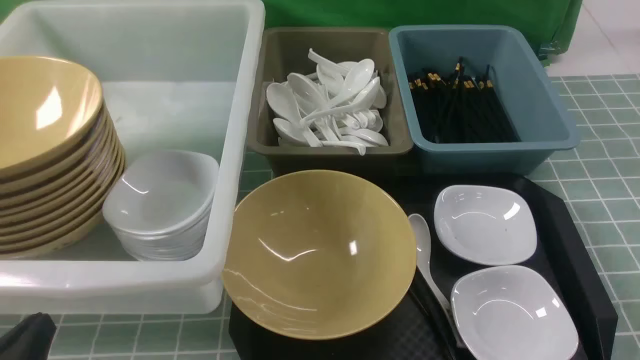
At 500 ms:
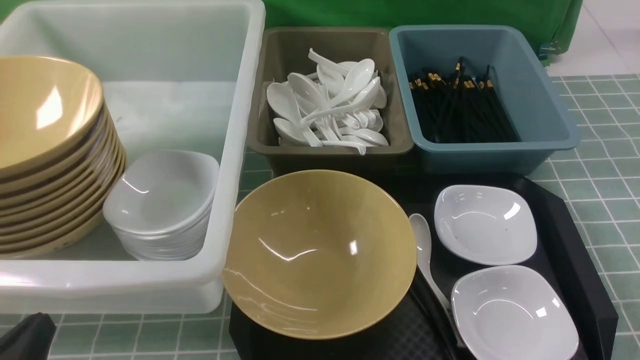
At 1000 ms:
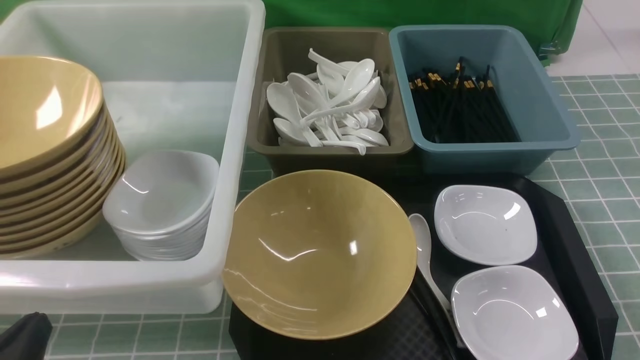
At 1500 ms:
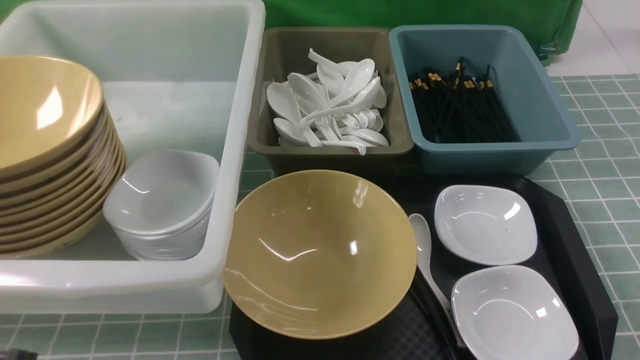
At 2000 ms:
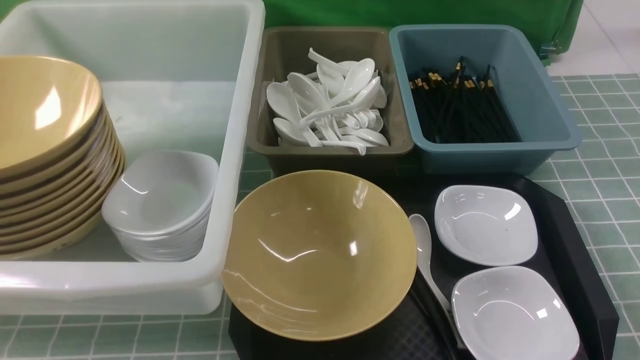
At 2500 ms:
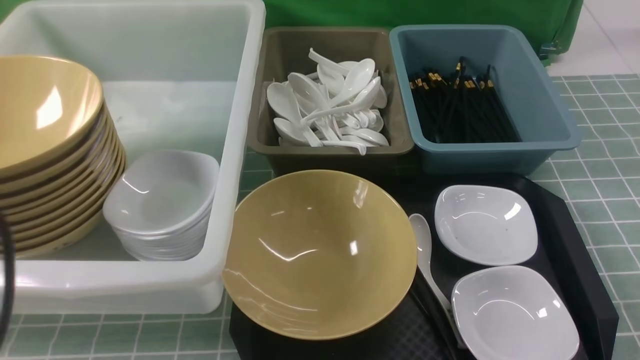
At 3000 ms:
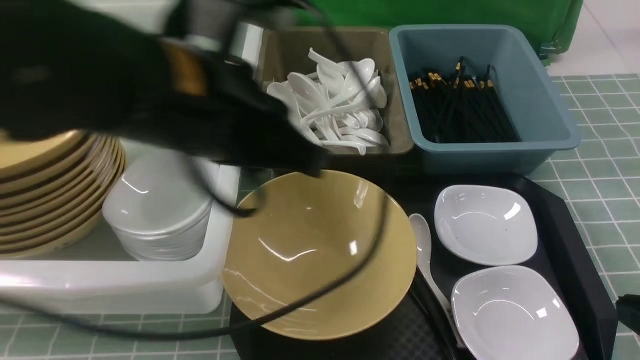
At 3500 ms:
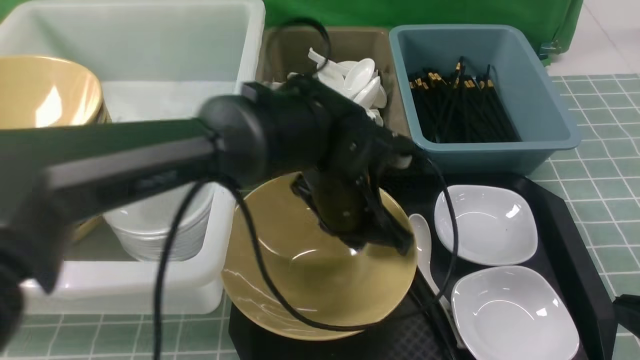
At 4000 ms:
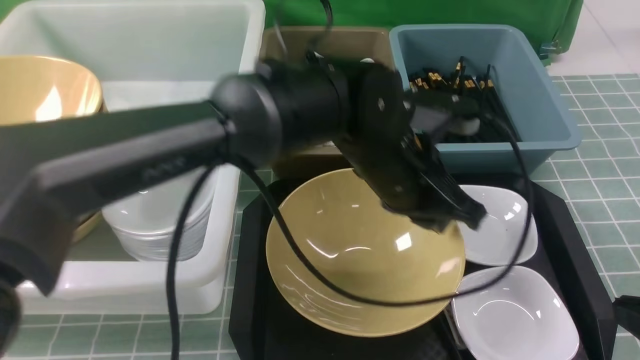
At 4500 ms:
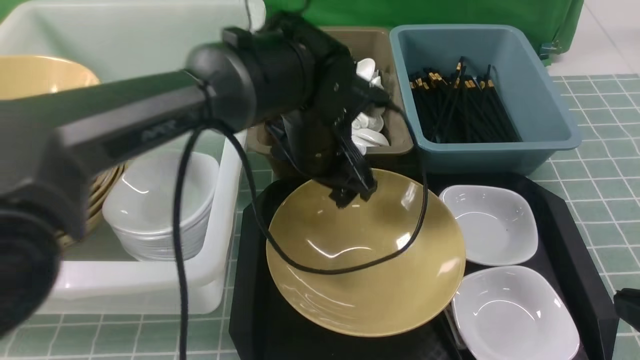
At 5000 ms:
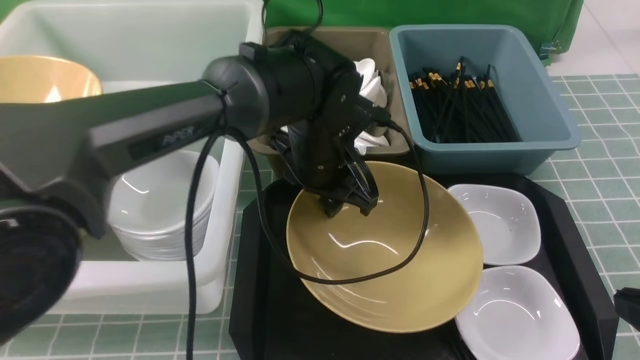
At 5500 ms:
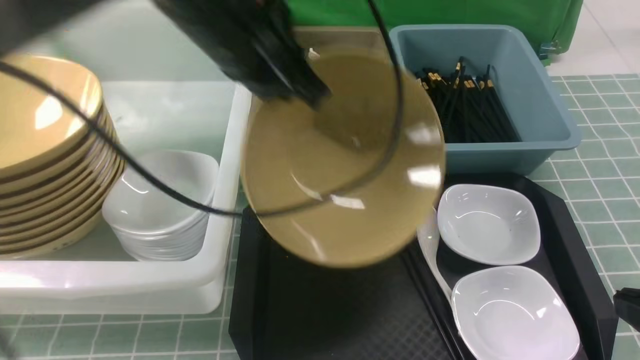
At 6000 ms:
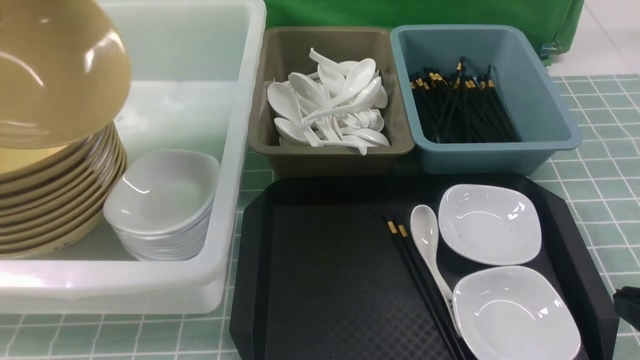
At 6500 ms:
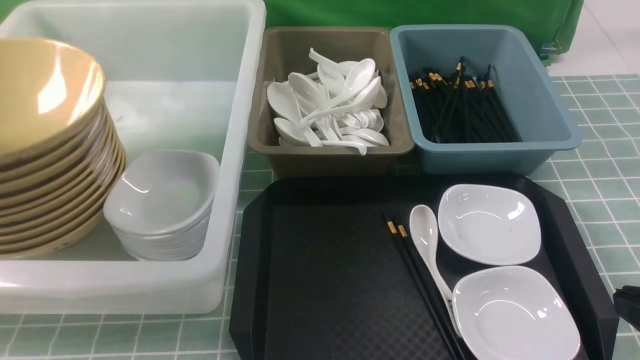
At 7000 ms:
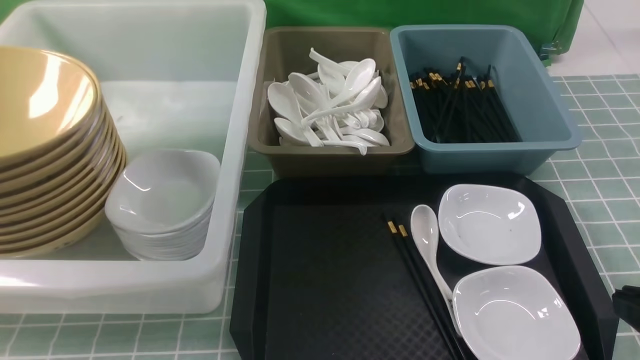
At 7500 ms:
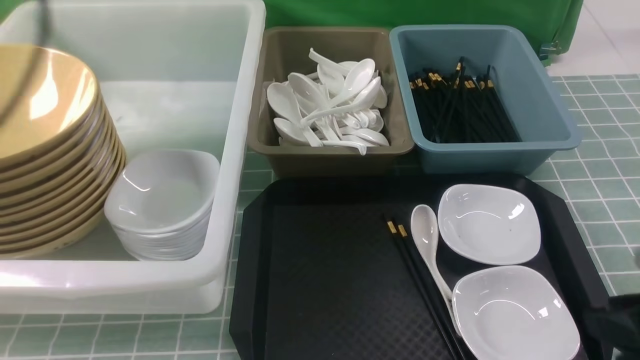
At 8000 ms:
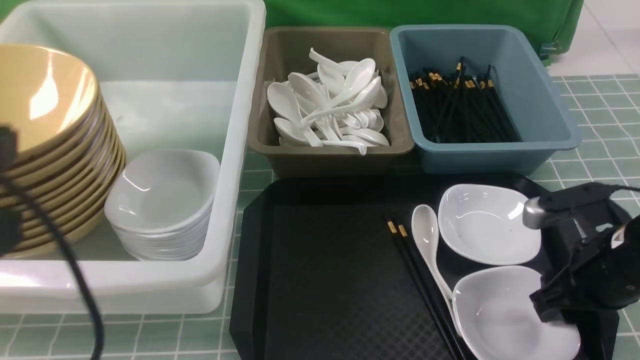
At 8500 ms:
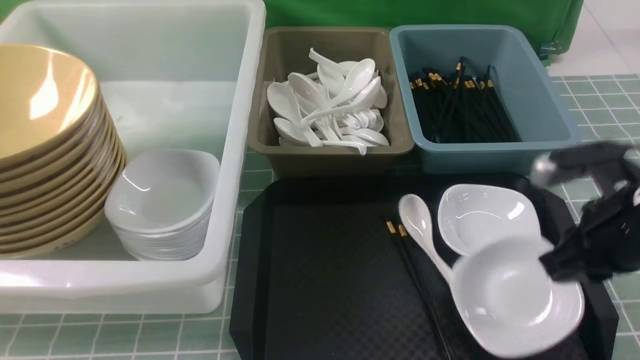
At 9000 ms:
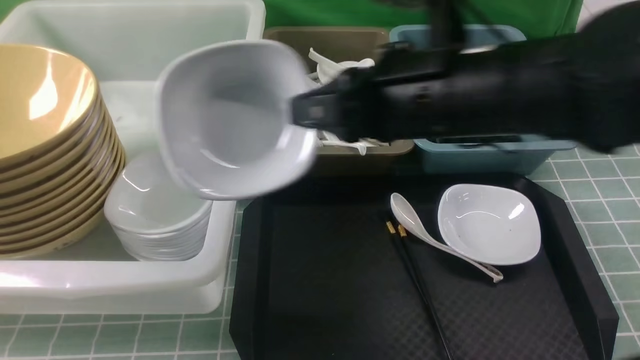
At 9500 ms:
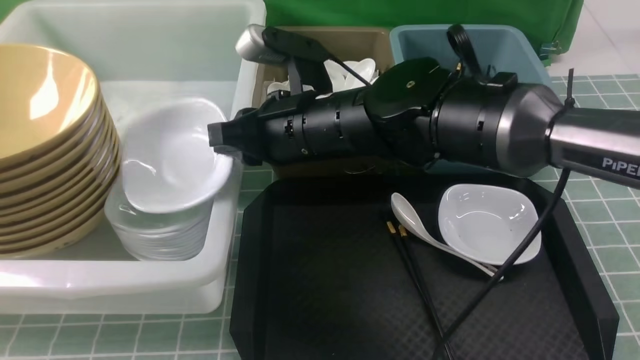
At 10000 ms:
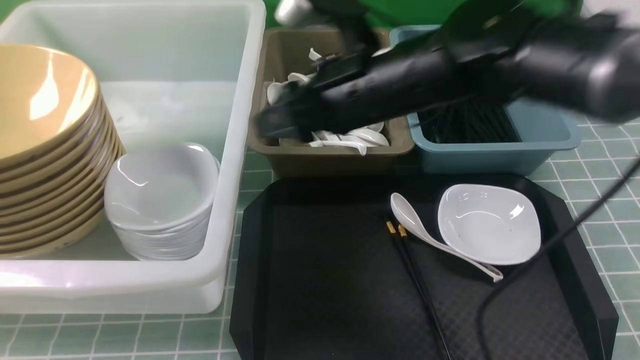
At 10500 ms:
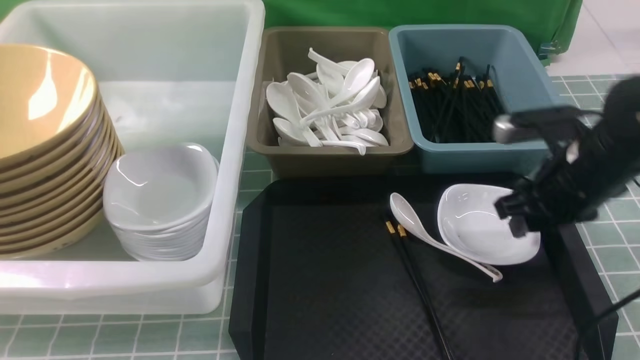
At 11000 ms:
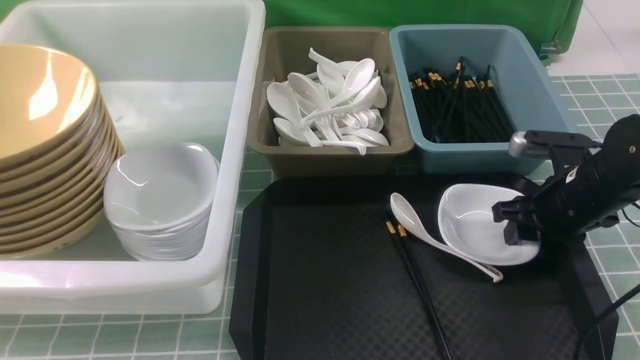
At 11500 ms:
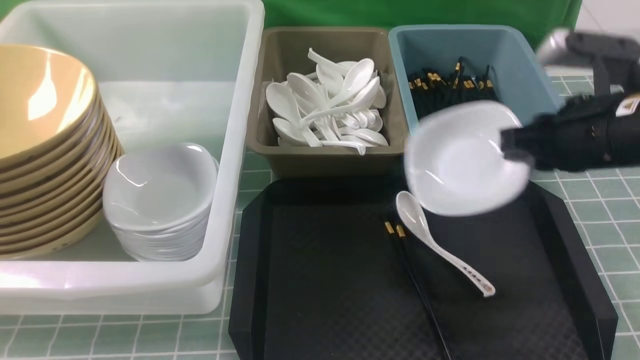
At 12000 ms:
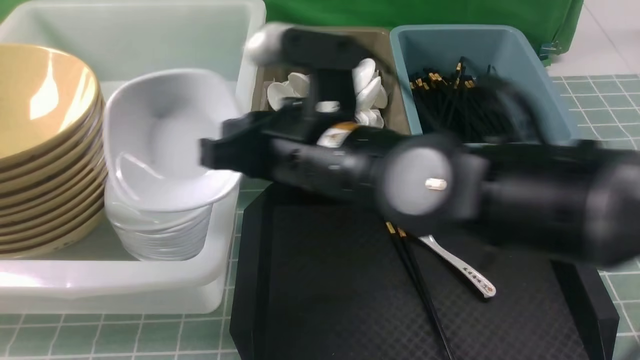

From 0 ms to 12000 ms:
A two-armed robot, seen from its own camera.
Task of the whole recording: on blue table put chopsticks spoon bowls plates into blue grey white boxes.
Step, from 0 ms to 5000 ms: use the left arm to grab the yellow noodle bowl on the left.
Step, from 5500 ms to 6500 ms: use the left arm to put the noodle bowl into the large storage box on the left.
Step, from 7000 ms to 8500 ms: use the right arm to grab the plate.
Step, from 9000 ms to 10000 ms: use the right arm to put the plate into the large storage box on the left.
Step, from 10500 ms to 11000 ms: use the right arm to grab the plate.
From 0 ms to 2000 ms: Both grippers move upward, roughly 15 cm.
From 2000 ms to 4000 ms: The right gripper heads forward and downward, covering approximately 10 cm. Meanwhile the left gripper shifts roughly 40 cm to the right and forward, and opens up.
From 4000 ms to 6000 ms: The left gripper heads to the left, covering roughly 40 cm, and closes up.
From 6000 ms to 8000 ms: The right gripper moves forward and downward, roughly 15 cm, and opens, while the left gripper moves backward and to the right, approximately 20 cm, and opens and closes again.
From 8000 ms to 10000 ms: The right gripper travels to the left, upward and forward by some 25 cm, and closes and opens again. Meanwhile the left gripper goes some 10 cm downward and backward.
From 10000 ms to 12000 ms: The right gripper goes roughly 5 cm backward, travels to the right and back again, some 20 cm each way, and closes.

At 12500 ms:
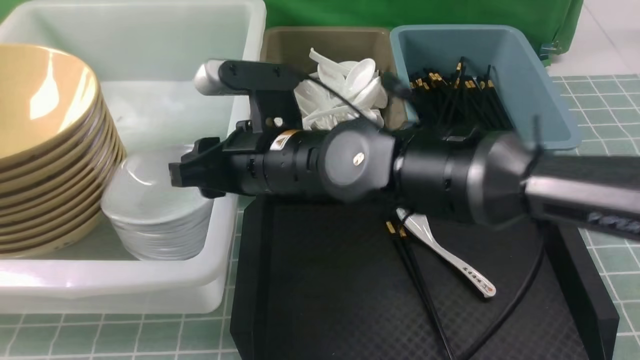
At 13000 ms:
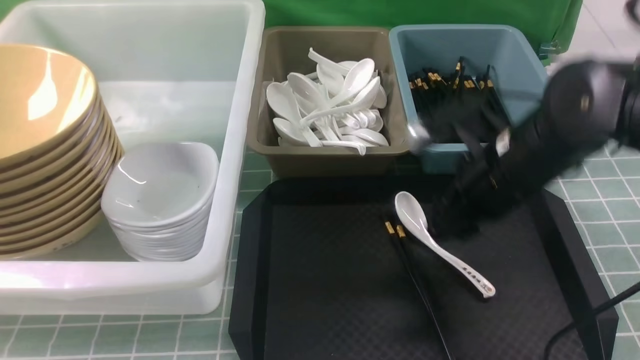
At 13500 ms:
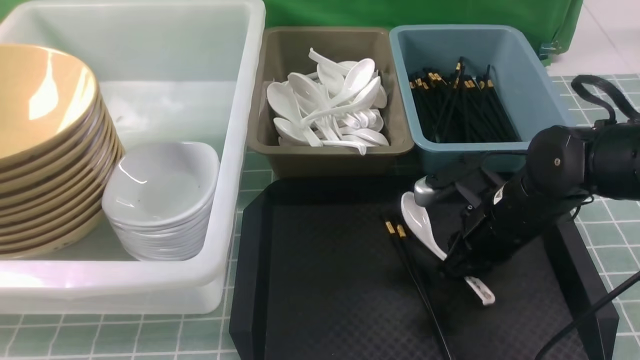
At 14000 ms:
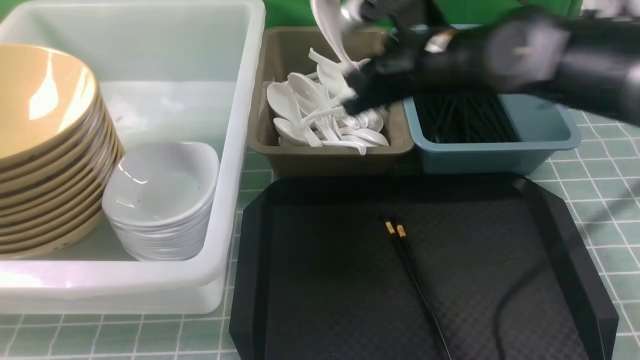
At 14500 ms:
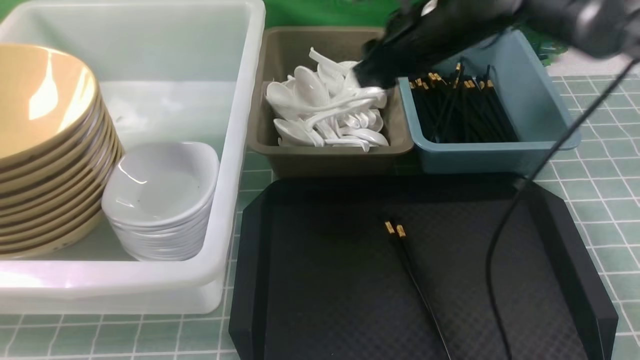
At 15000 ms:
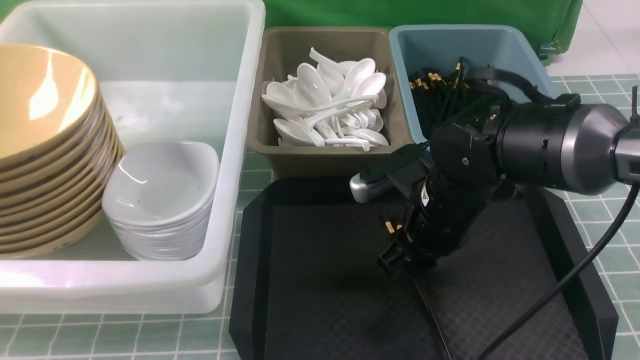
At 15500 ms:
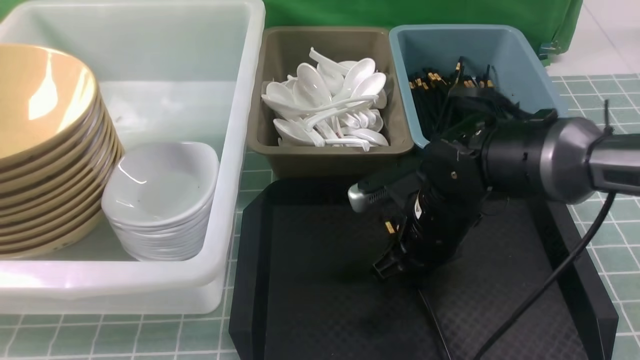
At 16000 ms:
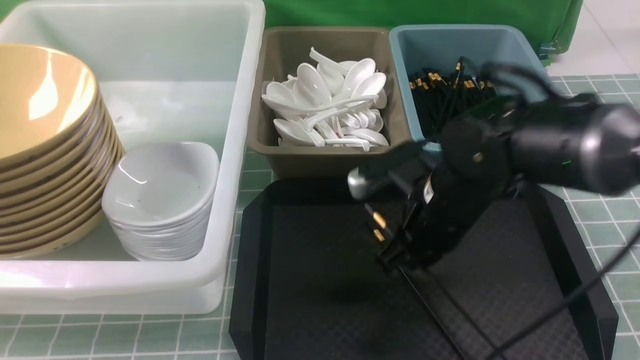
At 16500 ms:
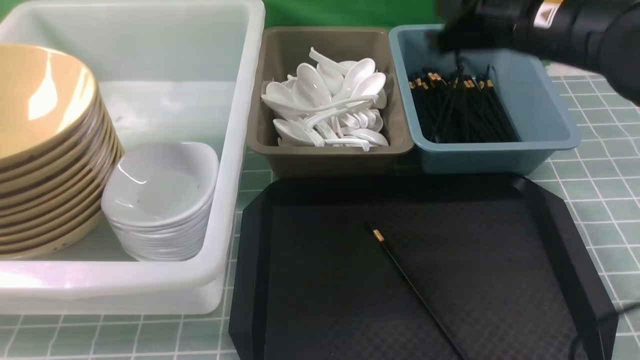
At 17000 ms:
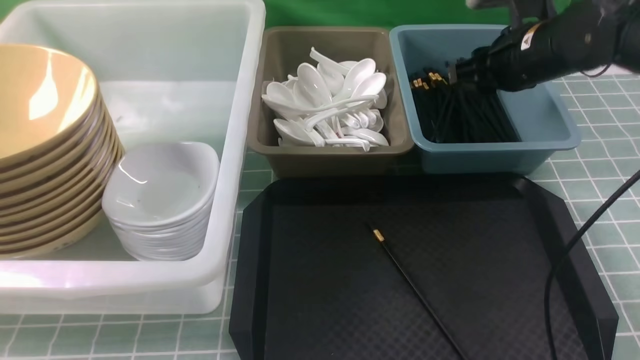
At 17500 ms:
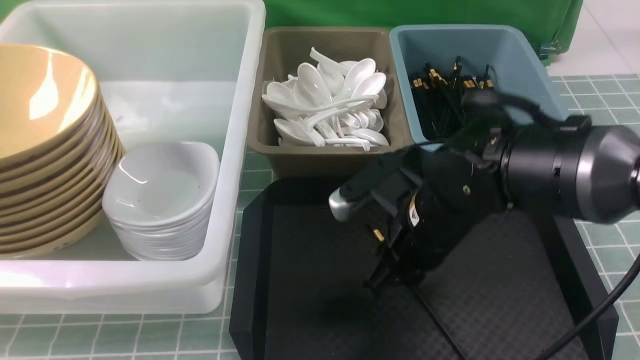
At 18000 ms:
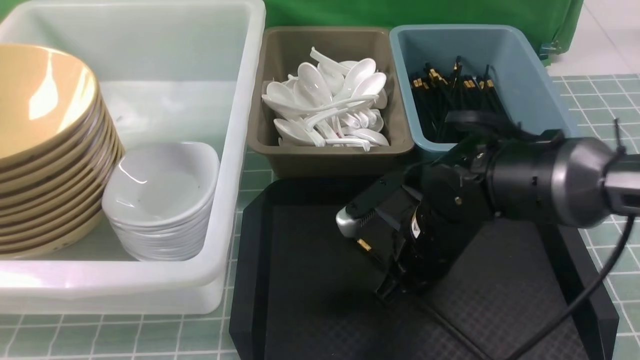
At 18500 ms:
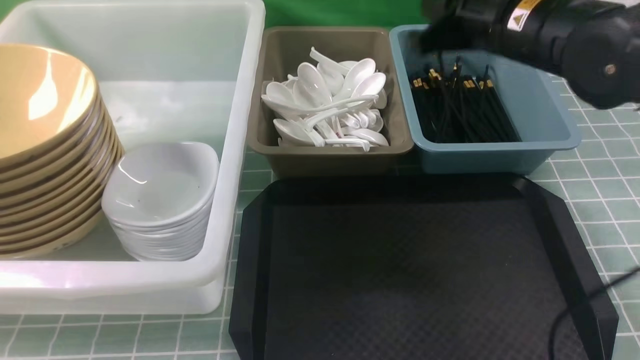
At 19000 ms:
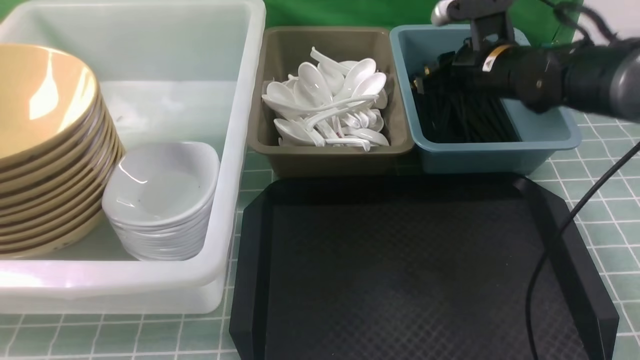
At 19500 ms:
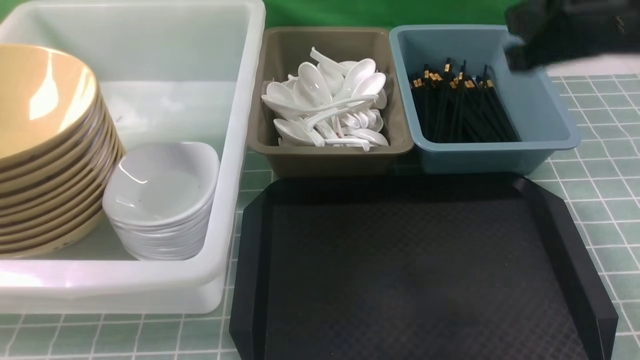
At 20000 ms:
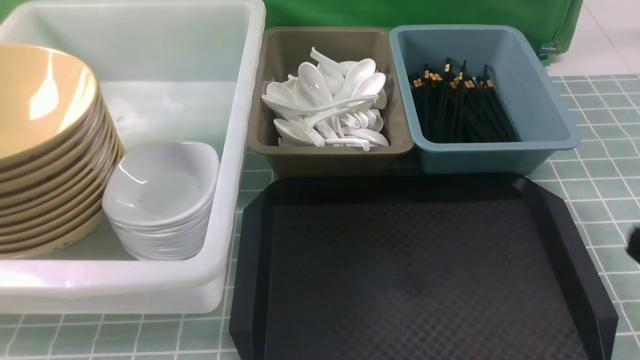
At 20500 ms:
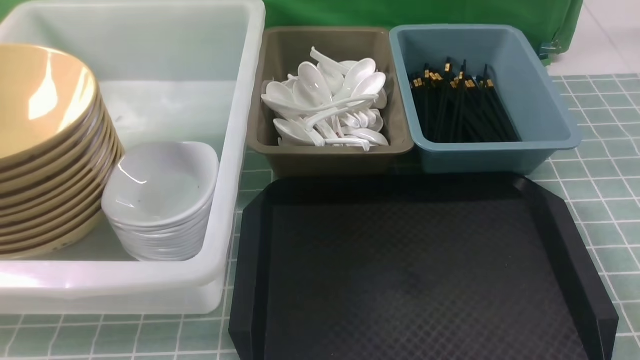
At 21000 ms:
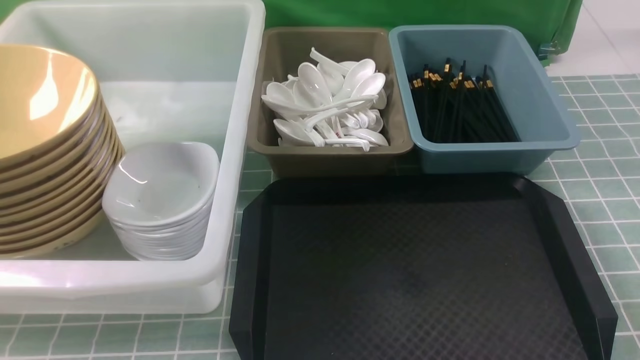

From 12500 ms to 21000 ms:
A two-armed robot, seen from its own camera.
Task of the whole recording: on blue table put chopsticks spoon bowls plates into blue grey white boxes.
Step, from 13000 ms to 13500 ms: use the right arm to grab the soup spoon in the middle.
Step, from 14000 ms to 14500 ms: use the right arm to put the soup spoon into the small storage box in the middle.
Step, from 15000 ms to 16000 ms: use the right arm to grab a chopstick.
Step, from 16500 ms to 17000 ms: use the right arm to put a chopstick into the small storage box on the right.
Step, from 17500 ms to 18000 ms: use the right arm to grab a chopstick.
Step, from 18500 ms to 19000 ms: use the right arm to put a chopstick into the small storage box on the right.
From 12500 ms to 14500 ms: The right gripper is displaced to the right and forward by approximately 15 cm, and closes, then opens again.
From 14500 ms to 16500 ms: The right gripper goes approximately 5 cm to the right, reaches some 10 cm downward, then returns, and closes.
From 16500 ms to 19000 ms: The right gripper goes some 5 cm forward, and opens up.
From 19000 ms to 21000 ms: The right gripper moves backward, approximately 35 cm, and closes up.
